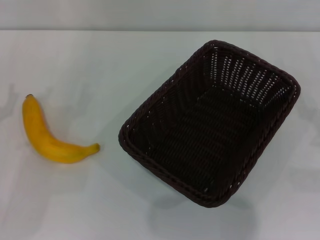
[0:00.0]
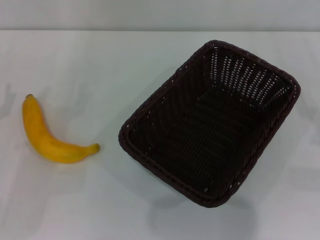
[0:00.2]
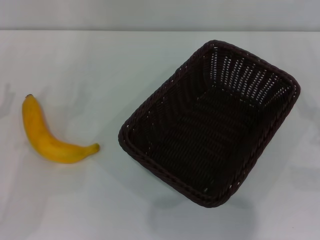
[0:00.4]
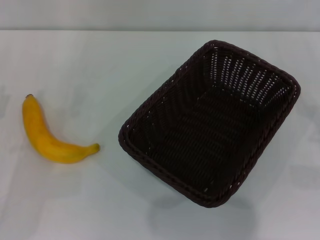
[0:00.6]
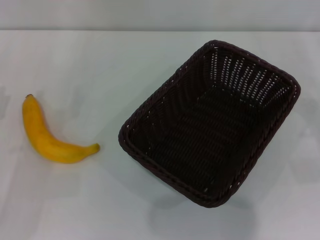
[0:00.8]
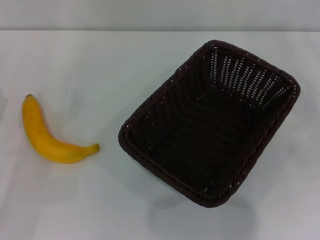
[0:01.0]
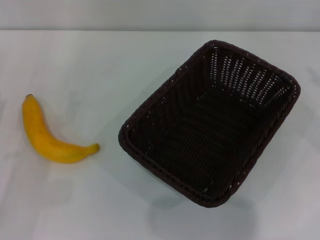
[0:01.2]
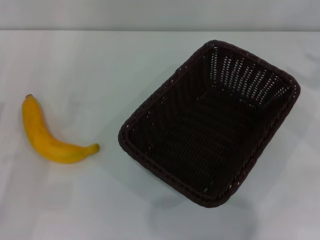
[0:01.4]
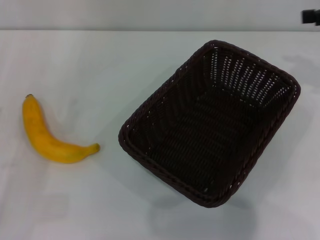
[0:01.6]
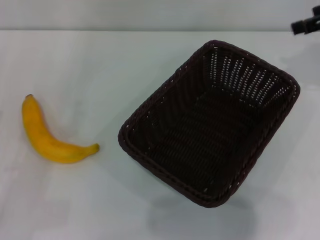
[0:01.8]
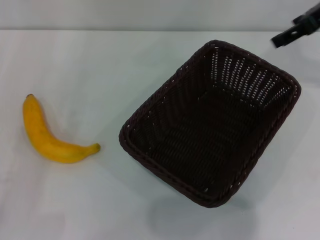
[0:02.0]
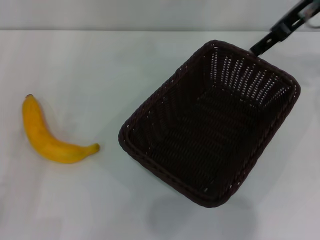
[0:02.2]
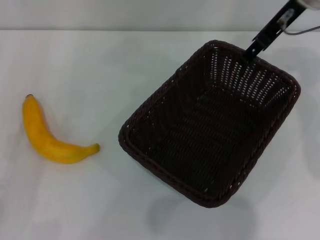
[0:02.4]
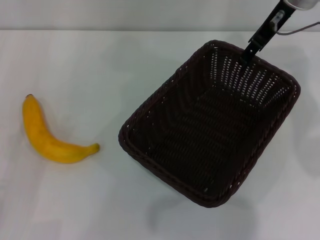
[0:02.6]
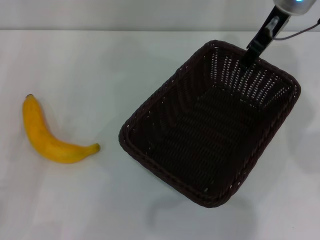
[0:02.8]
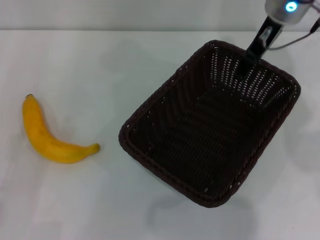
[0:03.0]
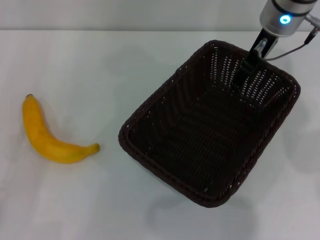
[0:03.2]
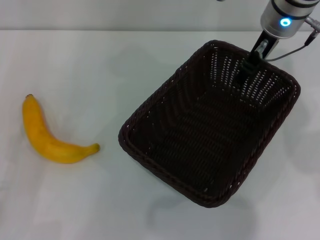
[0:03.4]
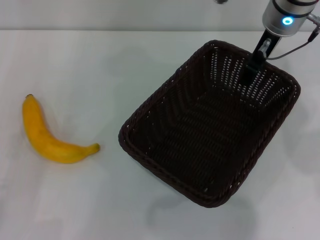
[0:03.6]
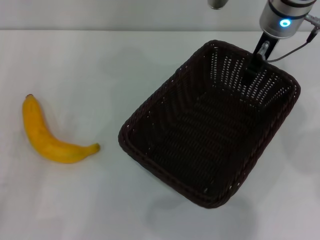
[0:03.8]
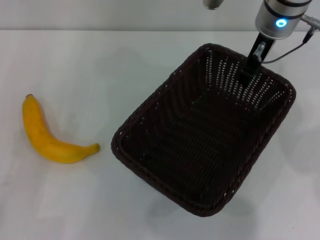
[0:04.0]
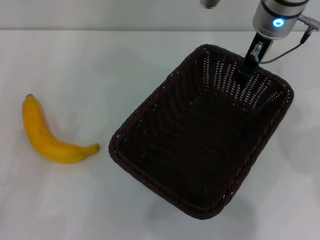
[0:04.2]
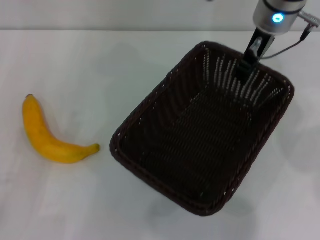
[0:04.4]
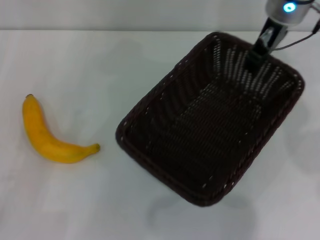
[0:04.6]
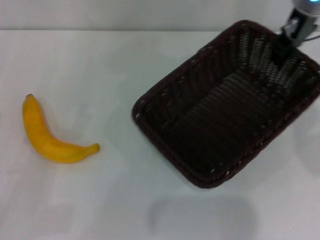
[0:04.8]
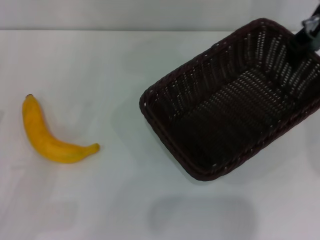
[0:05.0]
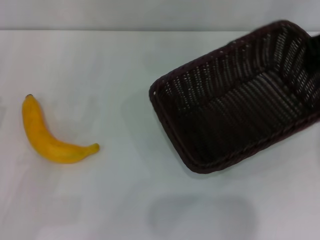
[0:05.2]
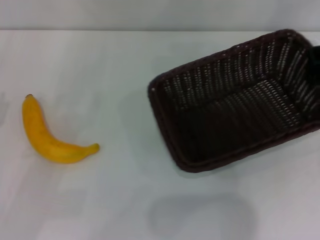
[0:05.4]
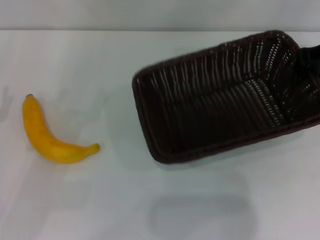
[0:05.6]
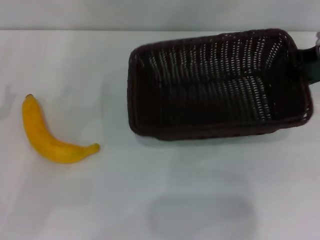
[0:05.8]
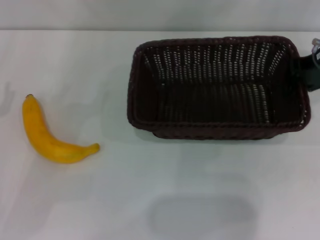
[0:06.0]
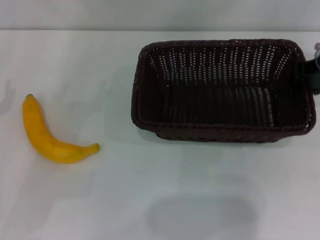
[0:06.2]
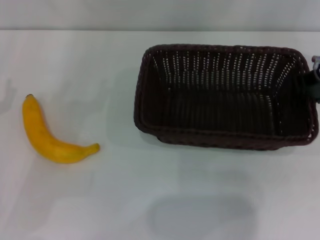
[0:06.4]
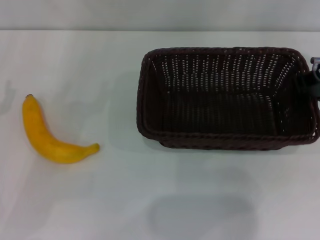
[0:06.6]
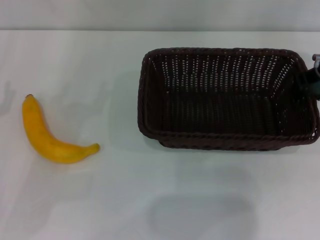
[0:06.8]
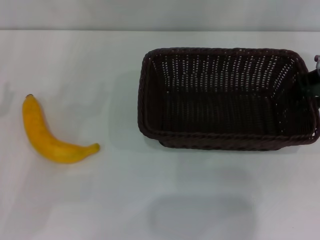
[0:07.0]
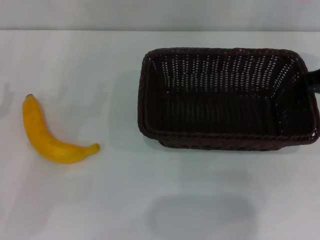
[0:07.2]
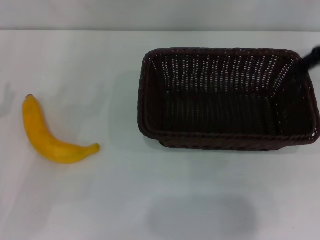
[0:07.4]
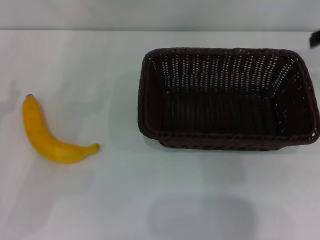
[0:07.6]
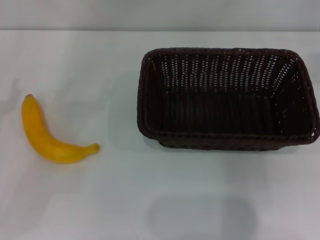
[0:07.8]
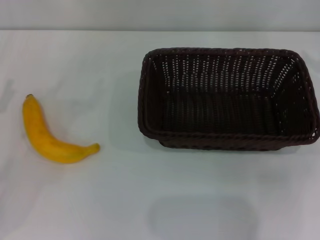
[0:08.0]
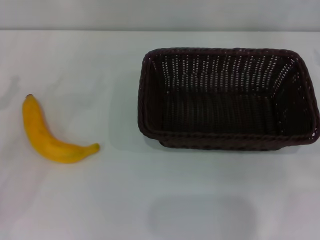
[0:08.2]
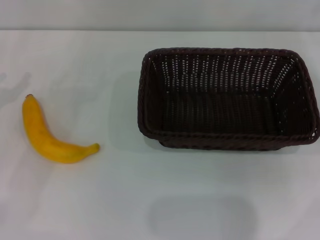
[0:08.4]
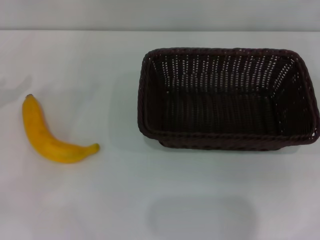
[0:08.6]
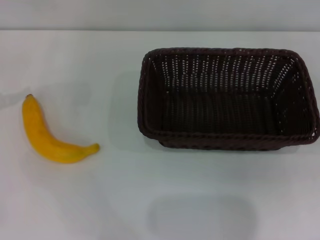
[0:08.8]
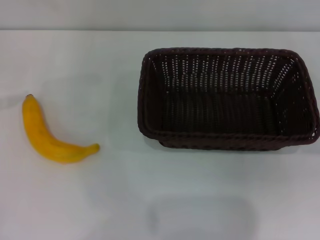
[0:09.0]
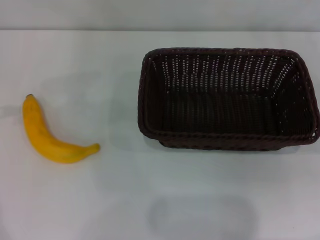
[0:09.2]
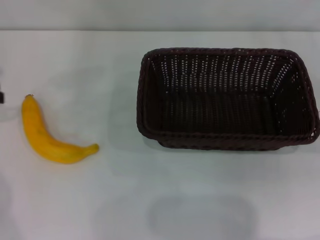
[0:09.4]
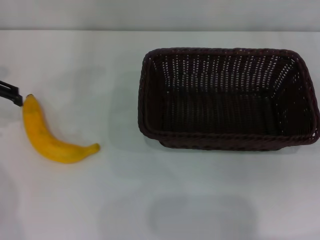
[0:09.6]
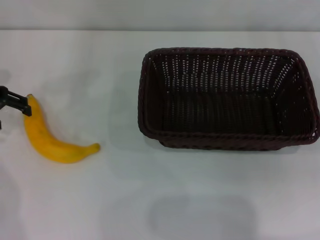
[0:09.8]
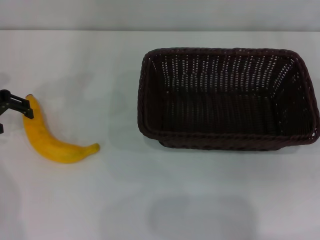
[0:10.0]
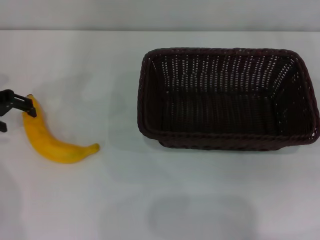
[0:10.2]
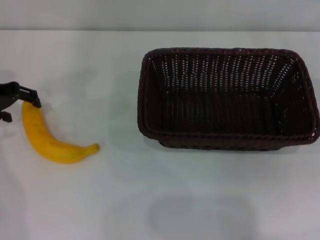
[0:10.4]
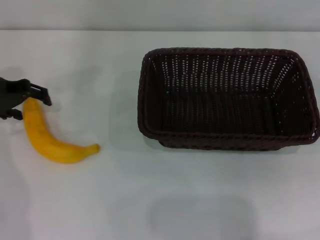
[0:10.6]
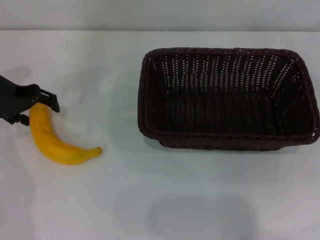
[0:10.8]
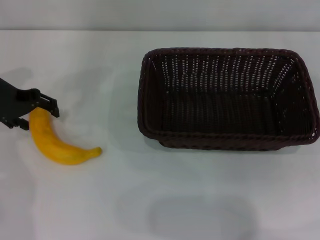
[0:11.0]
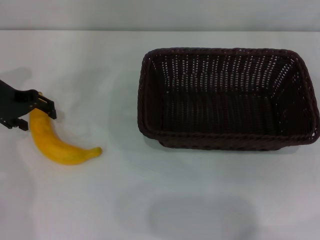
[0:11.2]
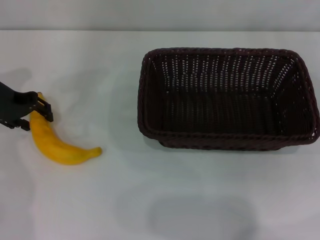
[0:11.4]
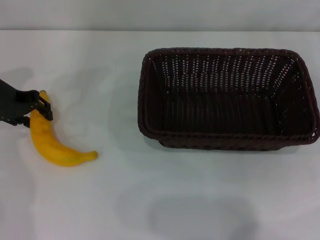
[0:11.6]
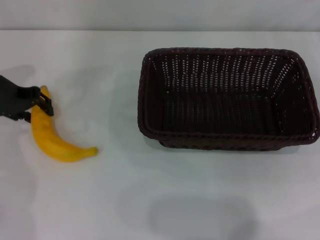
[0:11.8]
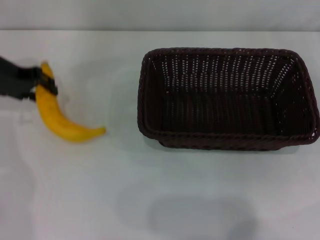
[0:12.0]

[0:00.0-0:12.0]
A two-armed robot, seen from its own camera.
Step, 0:00.0 to 0:04.6: Pick up the dark basket with the right gripper.
Step, 0:04.8 to 0:07.0: Place the dark basket in the center of view with the right gripper.
Step, 0:07.4 to 0:11.8: Pick up the banana with the left gripper.
0:01.6 to 0:03.0: The right gripper moves to the left, roughly 20 cm.
0:03.0 to 0:04.4: The right gripper closes up.
0:04.4 to 0:06.0: The left gripper shifts approximately 5 cm forward. The right gripper is displaced to the right by about 10 cm.
0:06.0 to 0:07.6: The right gripper moves roughly 5 cm, and opens.
0:09.0 to 0:10.4: The left gripper is displaced downward and to the right by roughly 10 cm.
0:10.4 to 0:12.0: The left gripper closes.

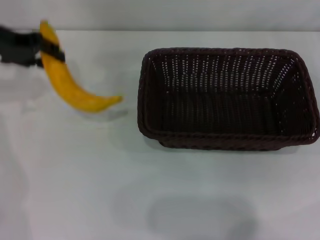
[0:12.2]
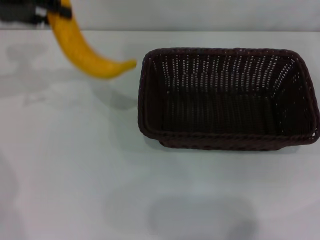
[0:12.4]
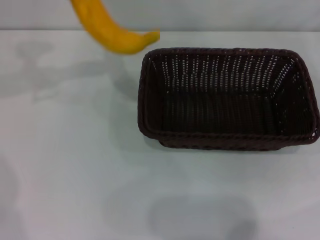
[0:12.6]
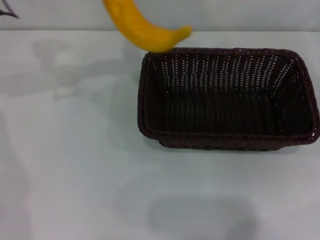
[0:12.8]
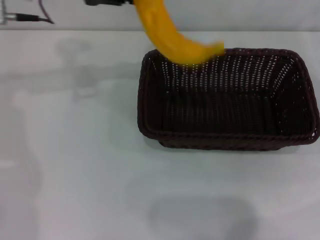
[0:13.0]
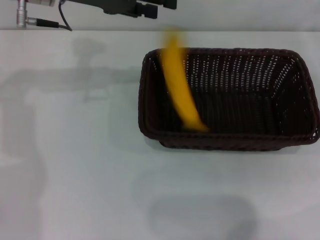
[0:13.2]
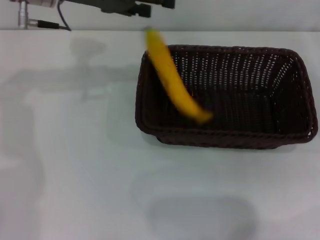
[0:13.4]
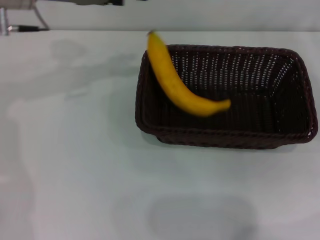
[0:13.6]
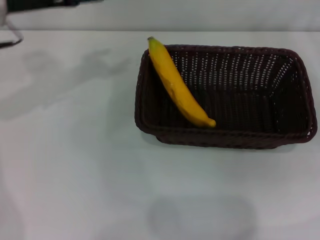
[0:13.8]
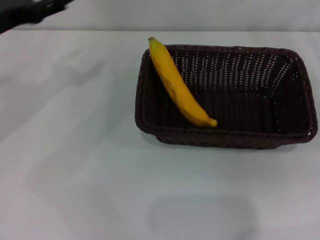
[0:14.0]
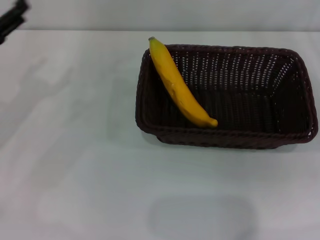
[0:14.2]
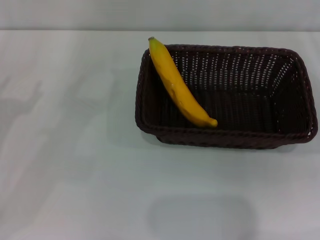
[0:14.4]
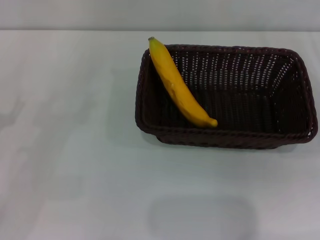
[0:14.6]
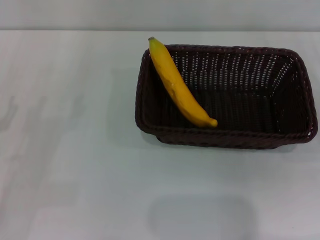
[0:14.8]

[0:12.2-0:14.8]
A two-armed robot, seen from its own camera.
Step, 0:12.2 to 0:13.4: Place the banana into the dark basket with the left gripper.
0:12.2 to 0:13.4: The left gripper heads to the right, covering approximately 10 cm, and opens.
0:13.4 to 0:14.8: The left gripper travels backward, downward and to the left by approximately 30 cm, and opens its fingers. The right gripper ends up approximately 5 cm from where it was.
